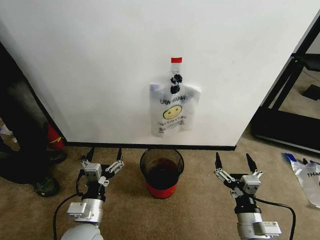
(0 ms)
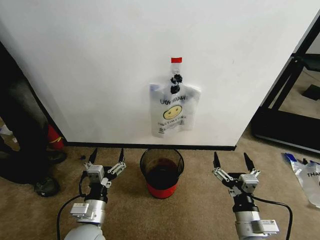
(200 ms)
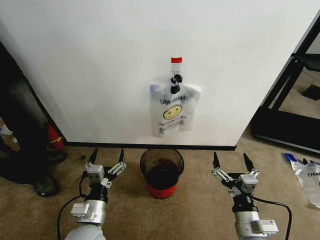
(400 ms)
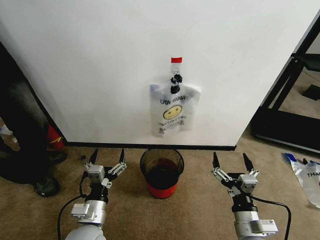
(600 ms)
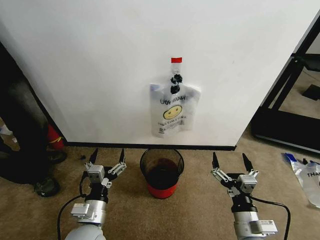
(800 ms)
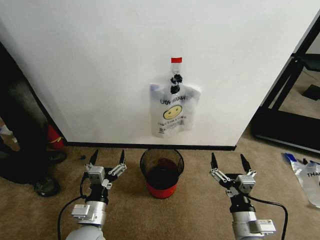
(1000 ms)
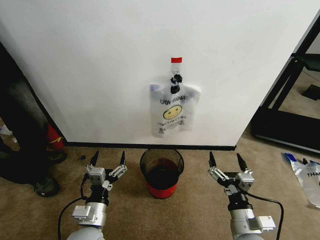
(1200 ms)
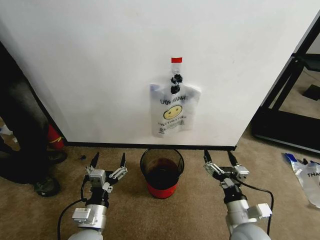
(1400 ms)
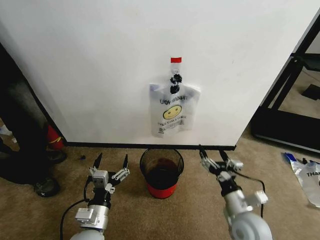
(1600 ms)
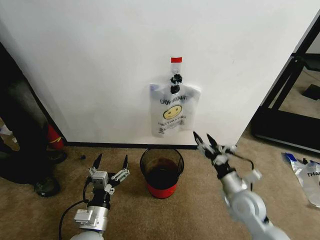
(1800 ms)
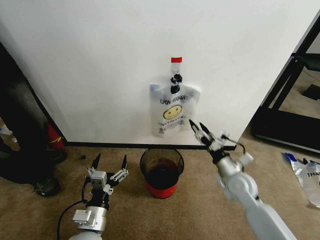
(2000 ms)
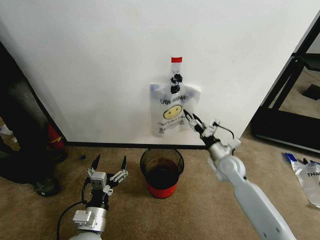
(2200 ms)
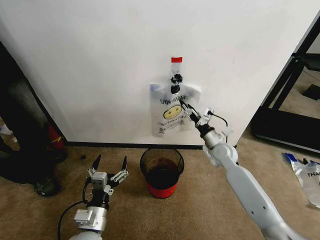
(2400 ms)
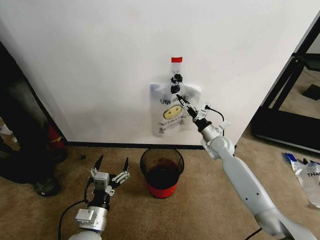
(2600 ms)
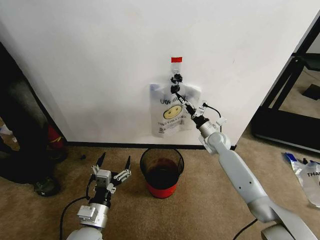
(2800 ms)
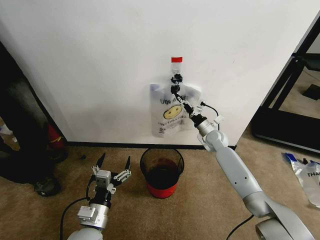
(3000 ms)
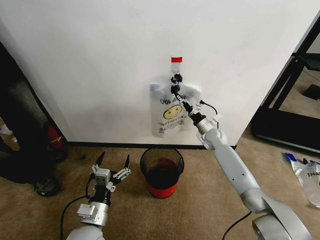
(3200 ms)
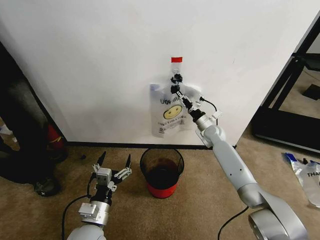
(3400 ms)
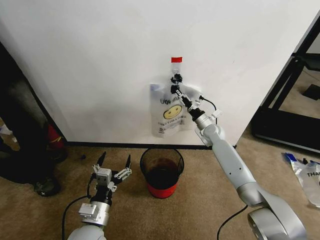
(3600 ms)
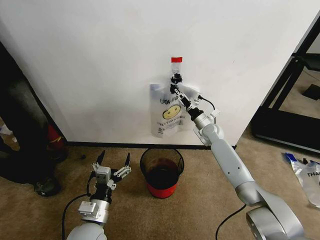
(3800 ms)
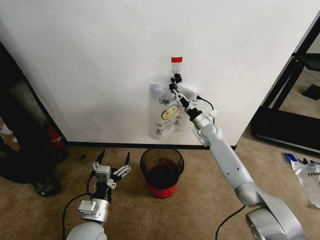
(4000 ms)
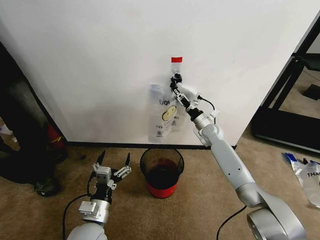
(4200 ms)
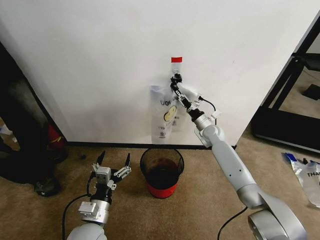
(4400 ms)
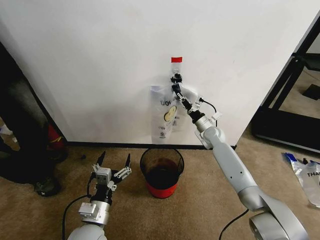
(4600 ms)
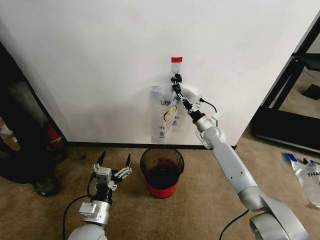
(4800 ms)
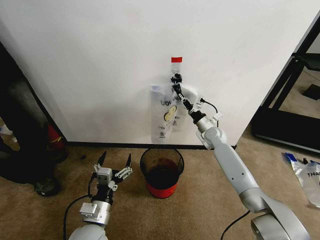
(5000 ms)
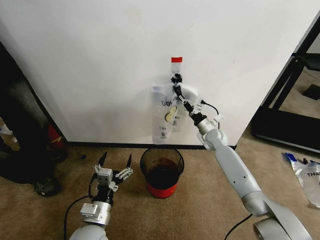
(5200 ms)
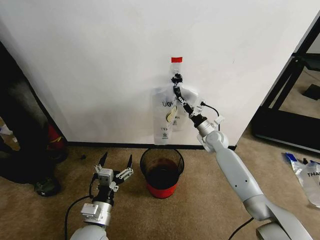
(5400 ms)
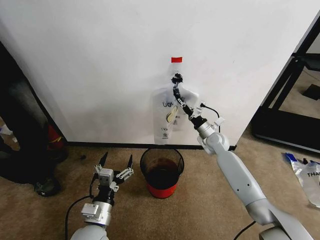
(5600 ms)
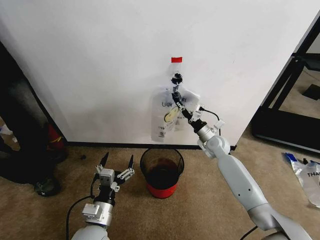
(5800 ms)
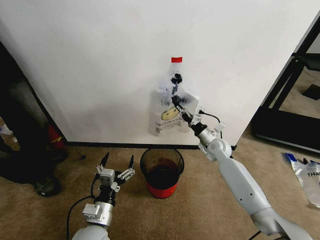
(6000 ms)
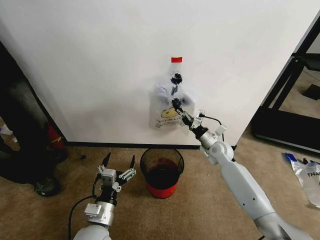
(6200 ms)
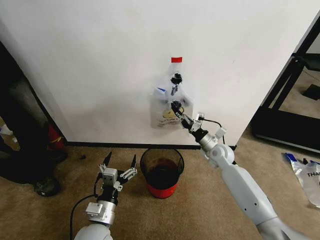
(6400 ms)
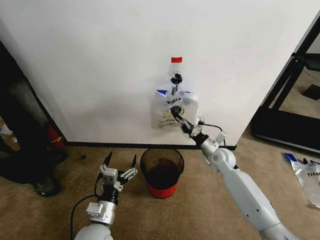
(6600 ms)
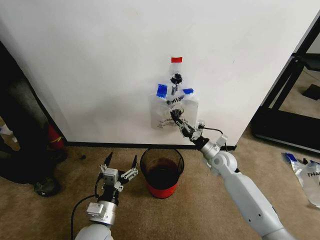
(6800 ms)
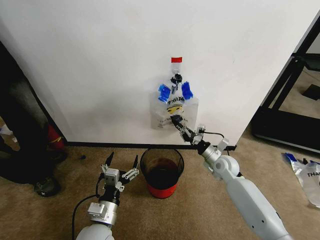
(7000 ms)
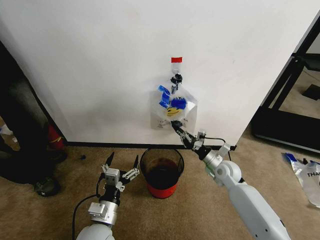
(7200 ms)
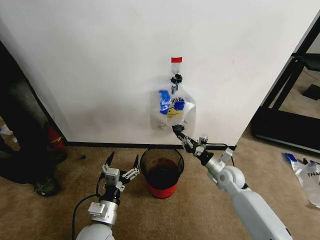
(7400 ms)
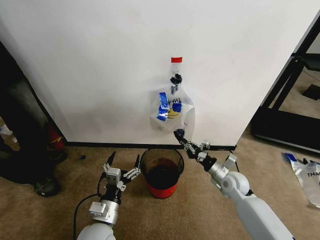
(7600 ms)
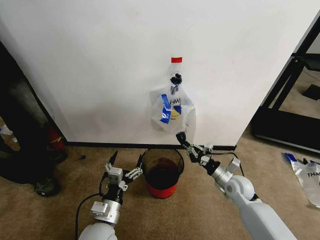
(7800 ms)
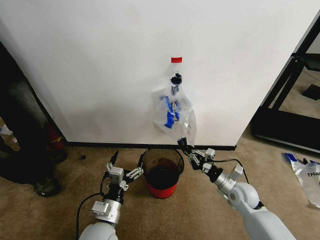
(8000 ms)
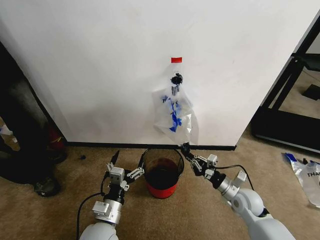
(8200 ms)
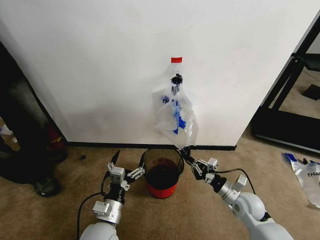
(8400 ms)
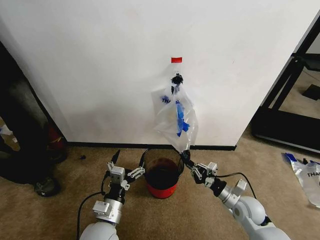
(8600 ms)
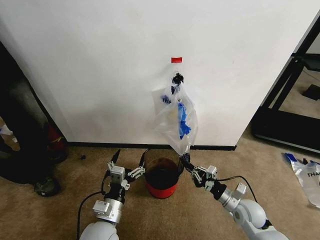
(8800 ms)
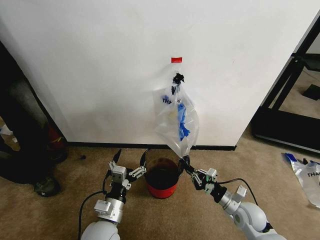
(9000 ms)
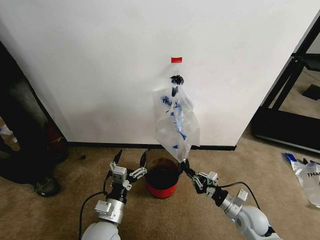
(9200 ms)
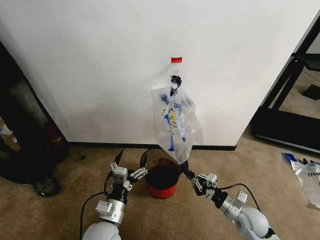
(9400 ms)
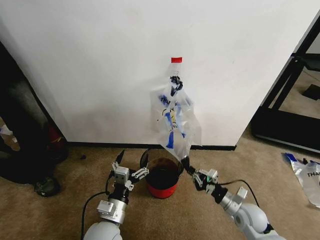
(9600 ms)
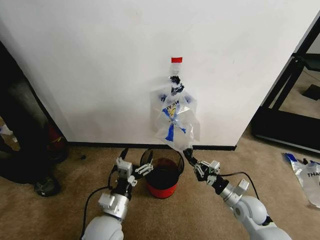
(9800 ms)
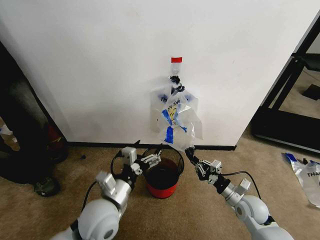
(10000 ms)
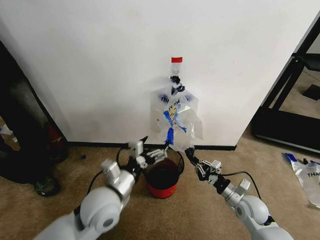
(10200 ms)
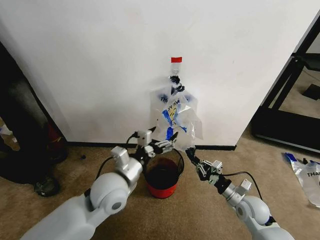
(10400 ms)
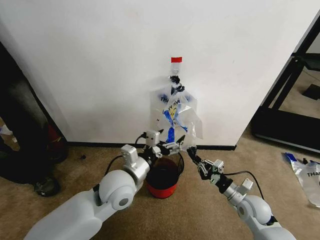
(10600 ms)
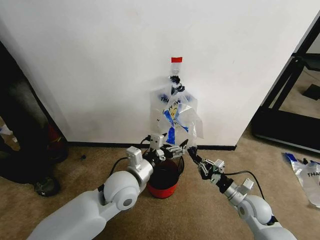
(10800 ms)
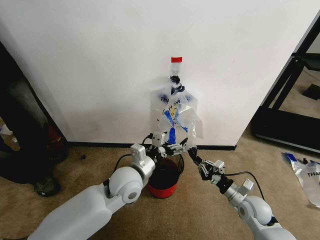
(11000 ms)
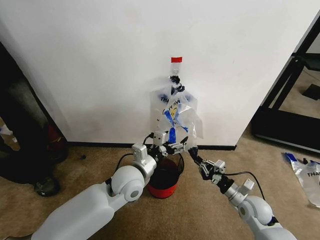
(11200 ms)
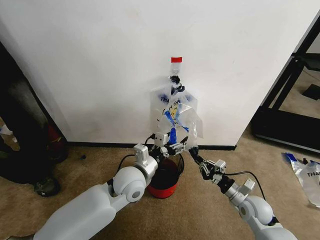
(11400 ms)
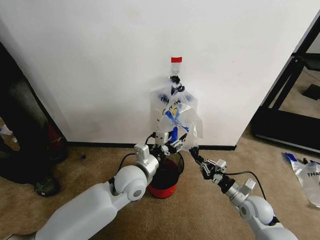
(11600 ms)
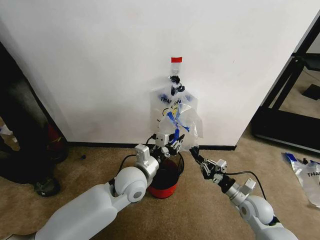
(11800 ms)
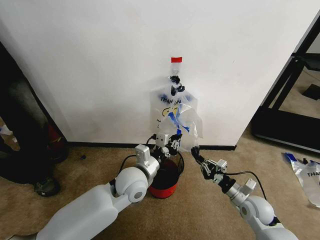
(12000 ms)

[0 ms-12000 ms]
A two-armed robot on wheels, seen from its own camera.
Task of the whole recording: Pick up the garbage bag from the wall and place it over the trash bin.
1600 ms to 3000 ms: The right gripper moves forward, approximately 35 cm.
3000 ms to 4400 ms: The right gripper closes its fingers.
4400 ms to 6000 ms: The right gripper moves backward, approximately 5 cm.
6000 ms to 7600 ms: The right gripper shifts some 15 cm backward.
7600 ms to 9000 ms: The right gripper is displaced backward by some 10 cm.
9000 ms to 10400 ms: The left gripper travels upward and forward by some 15 cm.
10400 ms to 12000 ms: The left gripper moves about 5 cm, and closes its fingers.

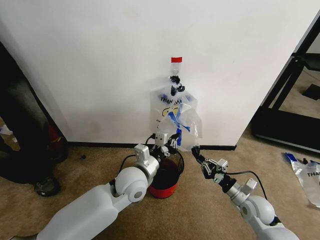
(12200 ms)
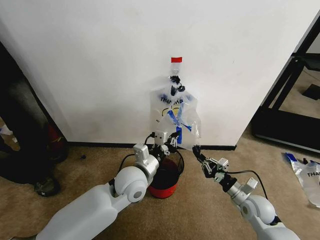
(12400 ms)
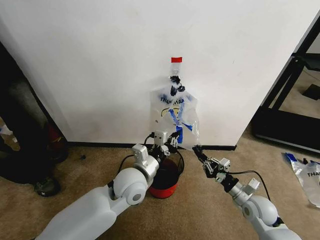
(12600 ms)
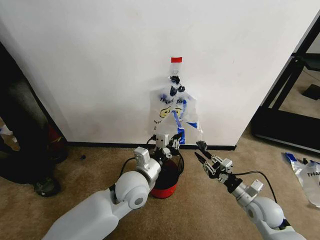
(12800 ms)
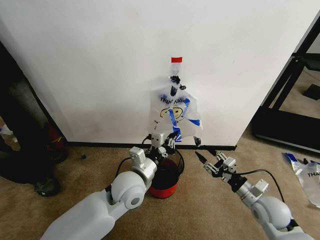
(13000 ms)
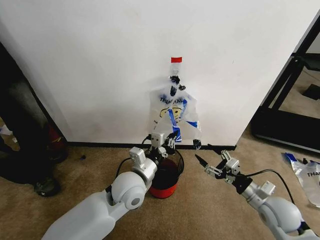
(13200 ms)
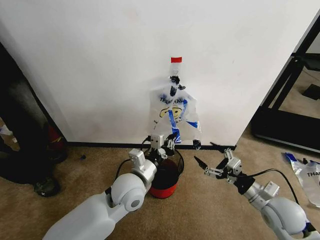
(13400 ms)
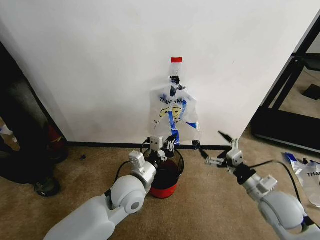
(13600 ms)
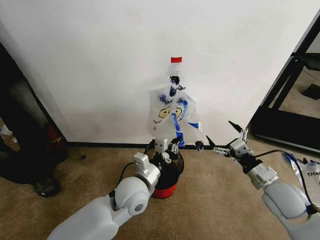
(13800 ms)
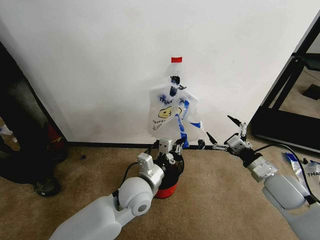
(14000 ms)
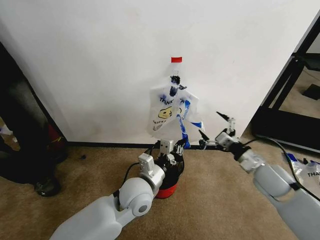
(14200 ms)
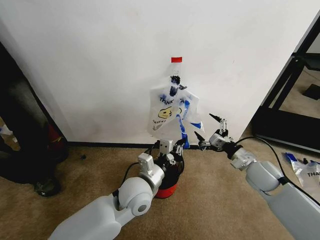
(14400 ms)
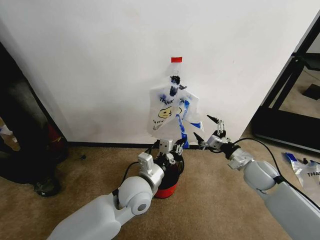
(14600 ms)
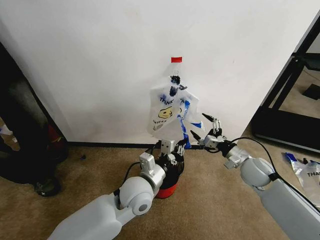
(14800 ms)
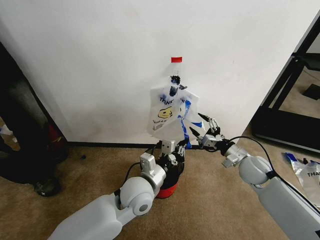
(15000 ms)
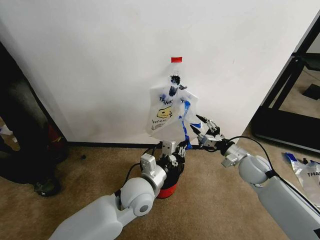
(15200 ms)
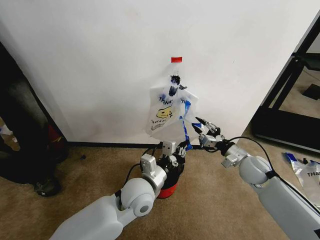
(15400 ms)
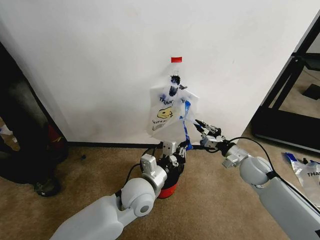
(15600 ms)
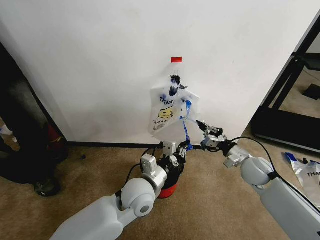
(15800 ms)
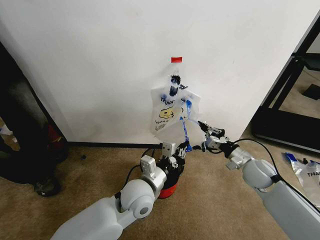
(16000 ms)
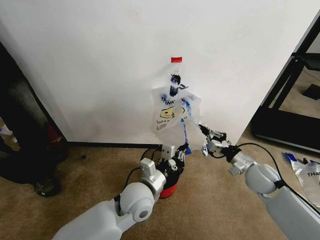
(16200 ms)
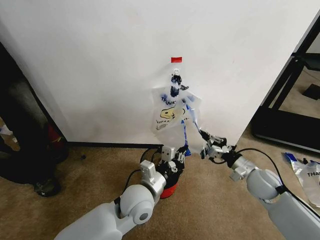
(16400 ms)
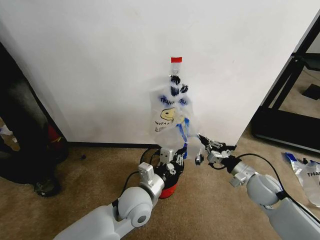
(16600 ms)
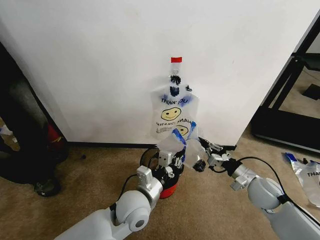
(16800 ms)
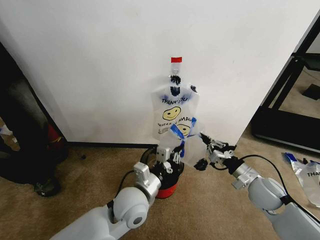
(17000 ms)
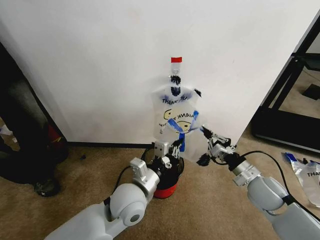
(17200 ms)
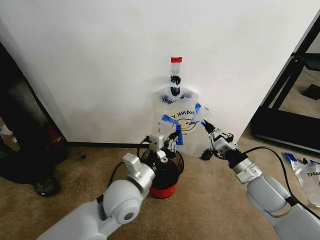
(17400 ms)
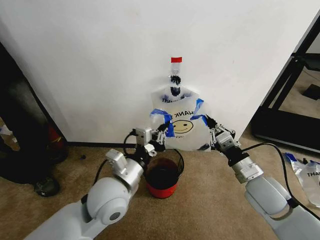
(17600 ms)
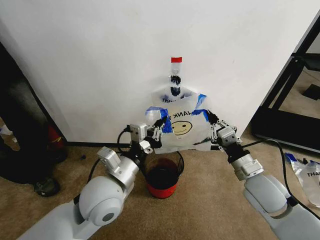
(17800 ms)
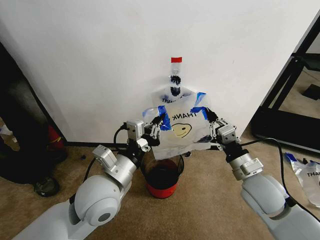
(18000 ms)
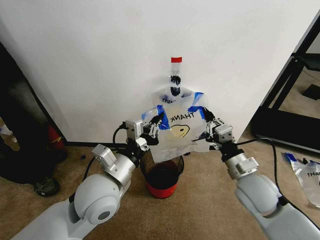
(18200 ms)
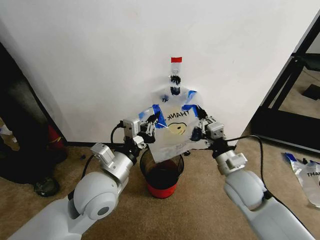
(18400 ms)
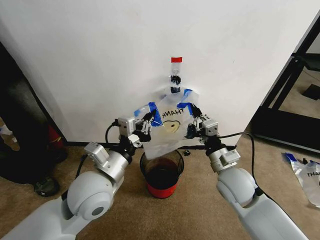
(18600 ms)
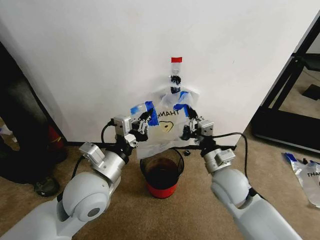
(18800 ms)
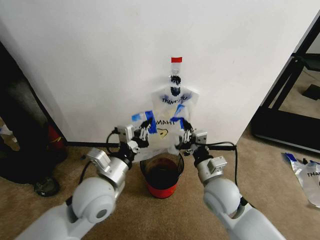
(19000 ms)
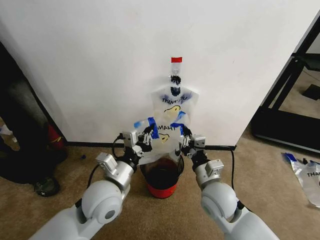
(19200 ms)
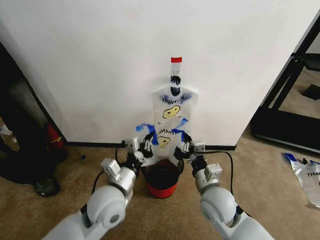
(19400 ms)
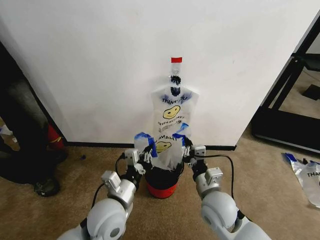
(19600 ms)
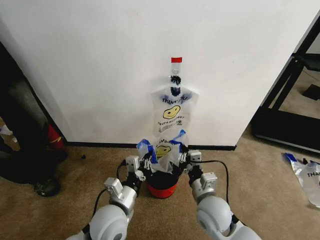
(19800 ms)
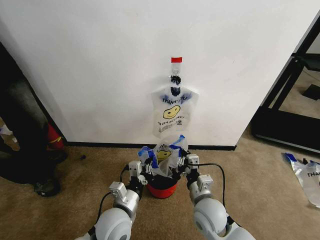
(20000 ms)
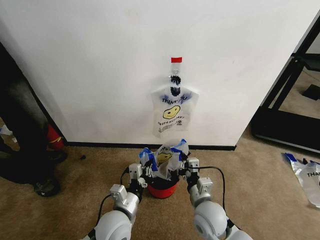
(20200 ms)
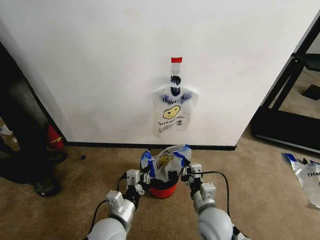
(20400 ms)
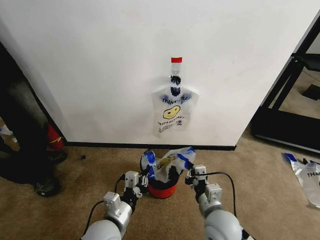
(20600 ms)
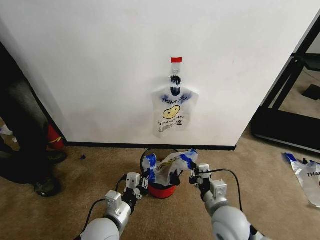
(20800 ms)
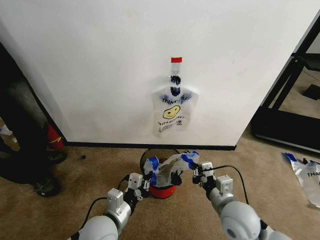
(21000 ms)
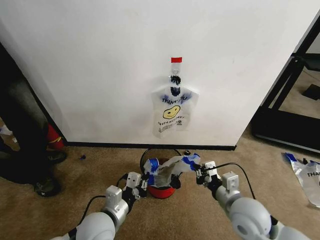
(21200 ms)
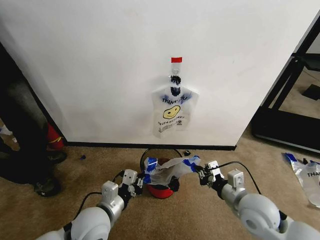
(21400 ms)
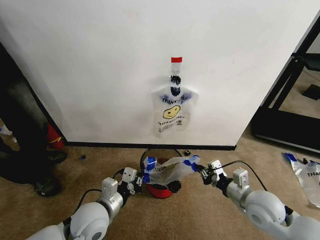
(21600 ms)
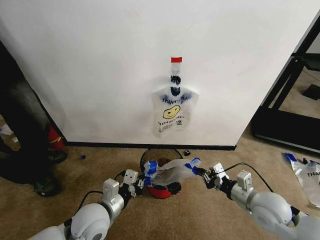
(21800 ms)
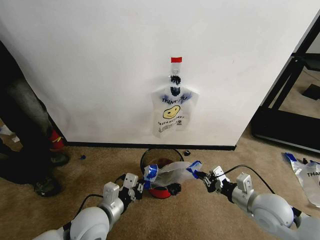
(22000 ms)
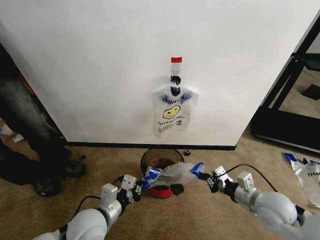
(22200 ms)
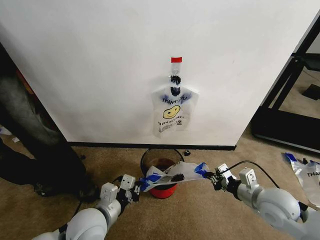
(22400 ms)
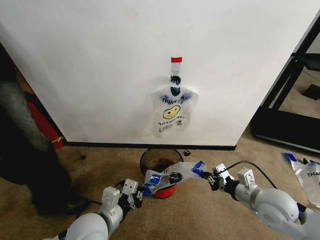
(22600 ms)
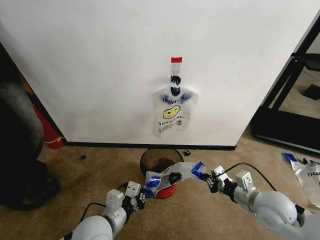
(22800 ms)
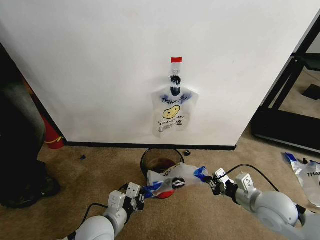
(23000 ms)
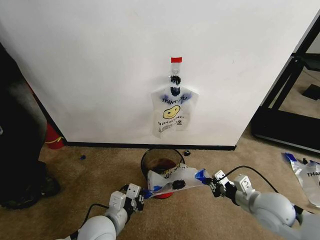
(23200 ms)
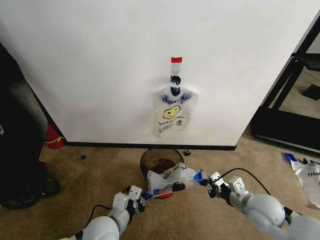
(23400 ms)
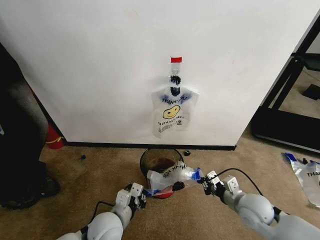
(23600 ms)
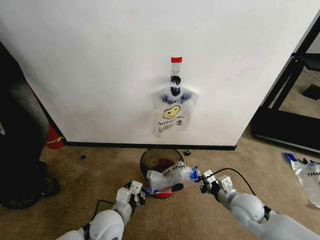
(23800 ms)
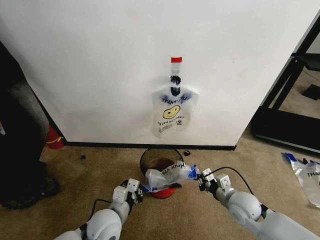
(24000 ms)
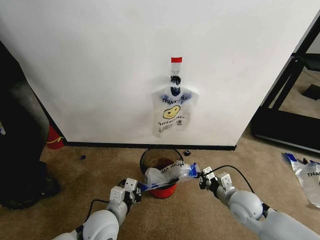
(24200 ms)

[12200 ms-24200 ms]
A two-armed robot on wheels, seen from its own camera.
Task of the whole recording: Pick up the garbage bag from the wall and place it over the trash bin.
12200 ms to 13800 ms: The right gripper shifts about 15 cm upward, and opens.
13800 ms to 15200 ms: The right gripper goes approximately 10 cm forward, and closes.
15200 ms to 16600 ms: The right gripper travels backward by roughly 5 cm, and closes up.
16600 ms to 18200 ms: The right gripper heads to the left and upward, covering roughly 15 cm. The left gripper shifts about 15 cm upward and to the left.
18200 ms to 19800 ms: The right gripper heads to the left and downward, covering roughly 15 cm. Meanwhile the left gripper moves downward, roughly 15 cm.
19800 ms to 21200 ms: The right gripper is displaced to the right by some 10 cm.
21200 ms to 22600 ms: The right gripper shifts approximately 10 cm to the right.
22600 ms to 24200 ms: Both grippers move downward, about 10 cm.
